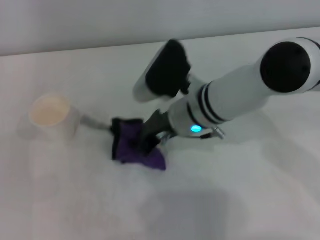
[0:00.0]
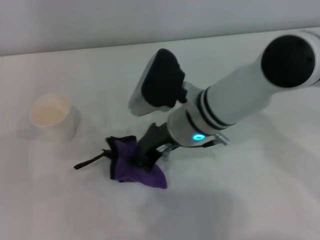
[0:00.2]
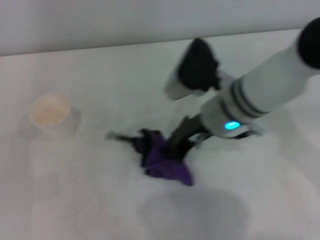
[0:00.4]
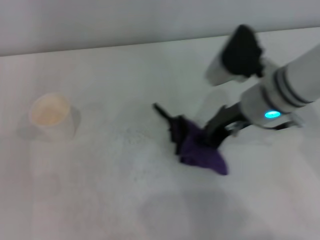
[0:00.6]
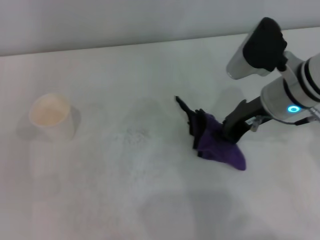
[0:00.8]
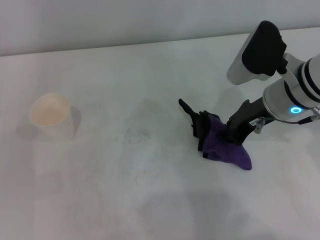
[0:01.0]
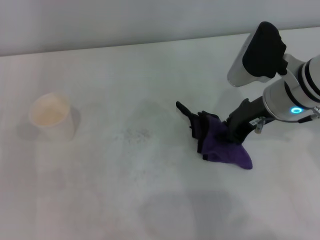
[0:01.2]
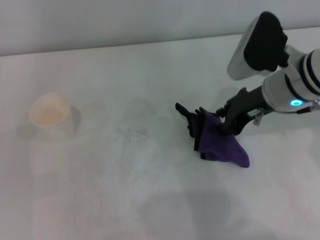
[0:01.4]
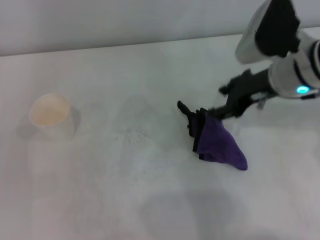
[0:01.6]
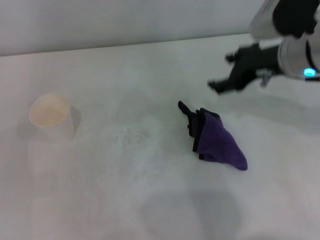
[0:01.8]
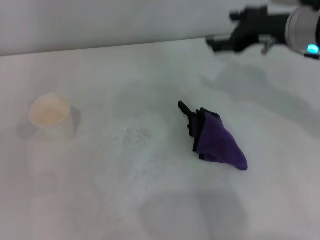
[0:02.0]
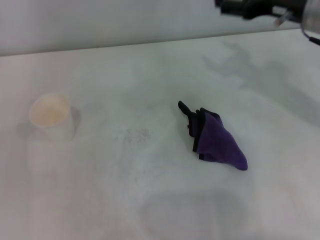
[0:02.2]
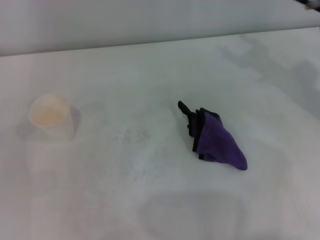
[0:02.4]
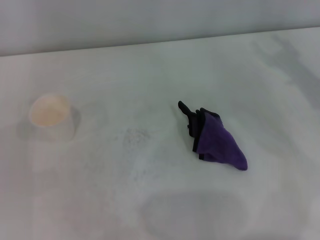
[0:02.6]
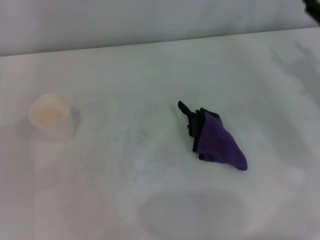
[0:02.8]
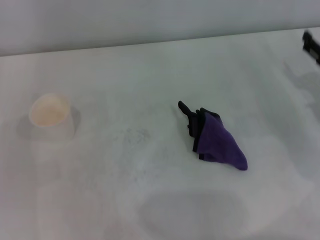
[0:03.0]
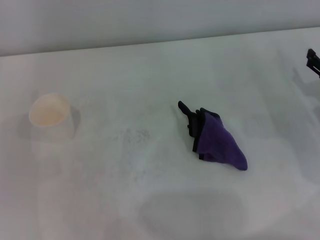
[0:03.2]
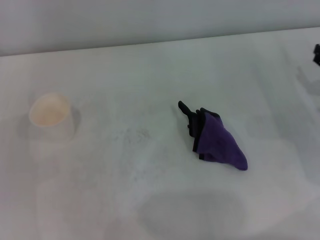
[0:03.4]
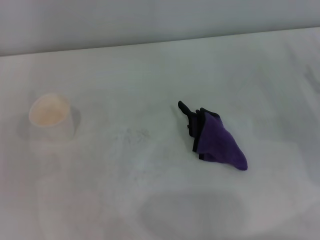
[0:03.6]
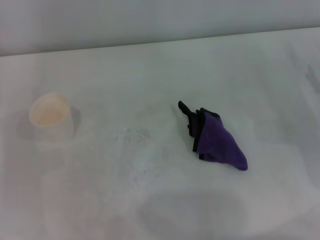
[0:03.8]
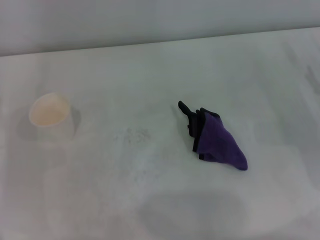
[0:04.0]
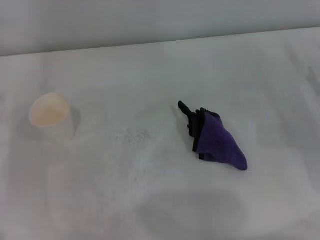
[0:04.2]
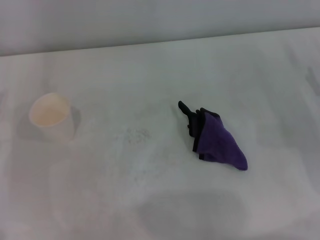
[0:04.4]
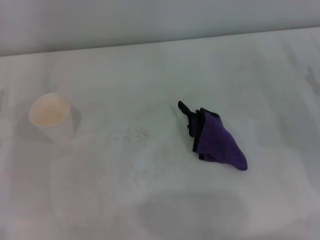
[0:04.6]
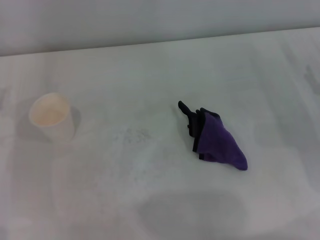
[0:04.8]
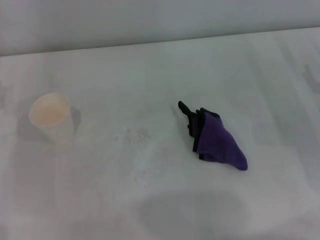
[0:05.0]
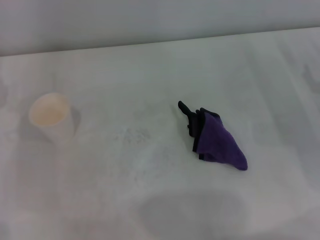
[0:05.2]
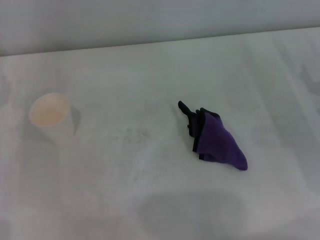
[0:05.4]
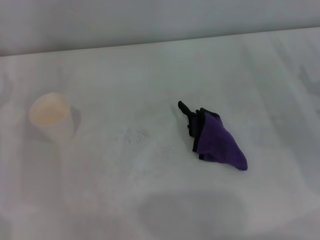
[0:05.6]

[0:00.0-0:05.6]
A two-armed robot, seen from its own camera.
Step, 0:00.6 to 0:01.2: Place the rag on the table with the right gripper.
0:00.0 to 0:01.4: The right gripper heads to the right, covering roughly 10 cm, and opens up.
0:01.4 to 0:02.8: The right gripper moves to the right, approximately 15 cm, and opens.
0:02.8 to 0:04.2: The right gripper shifts some 5 cm downward.
